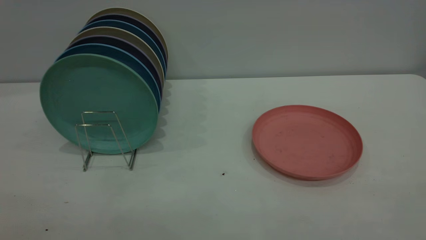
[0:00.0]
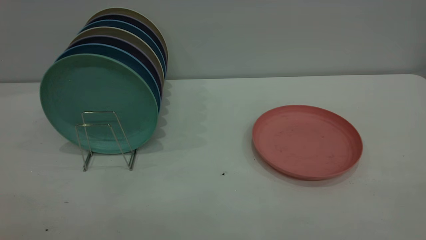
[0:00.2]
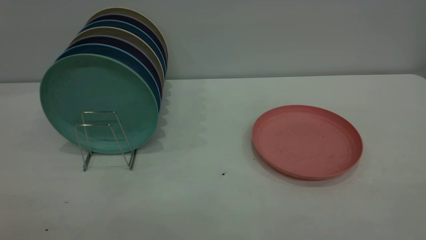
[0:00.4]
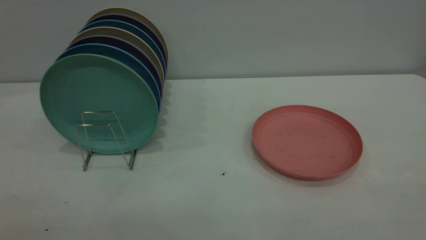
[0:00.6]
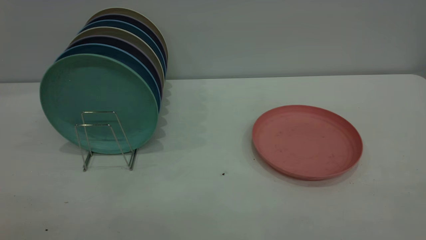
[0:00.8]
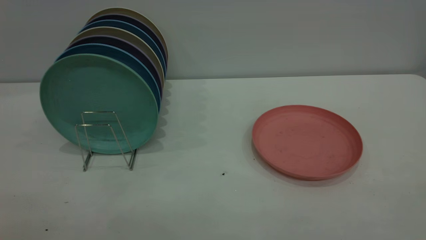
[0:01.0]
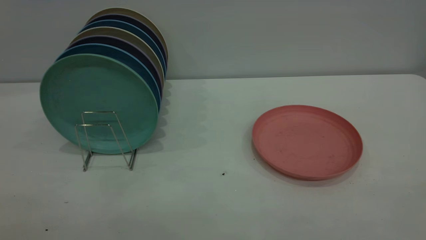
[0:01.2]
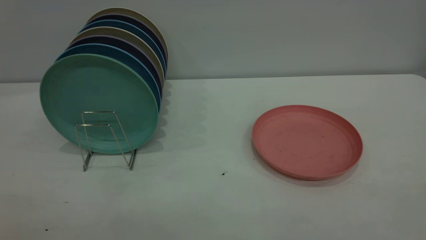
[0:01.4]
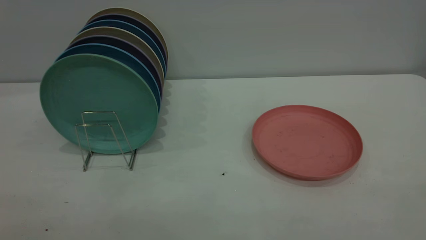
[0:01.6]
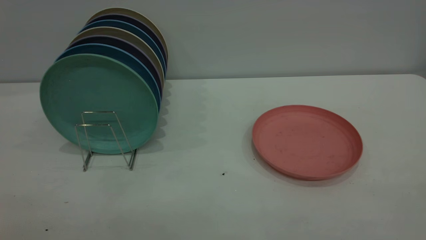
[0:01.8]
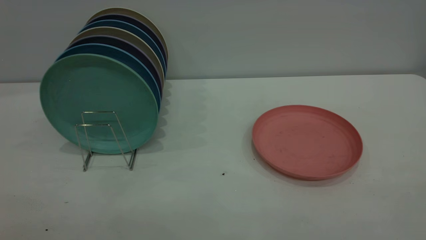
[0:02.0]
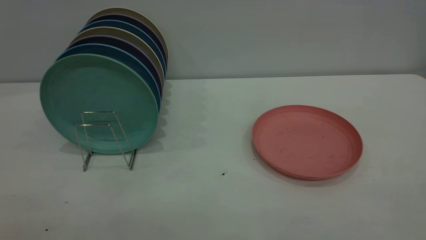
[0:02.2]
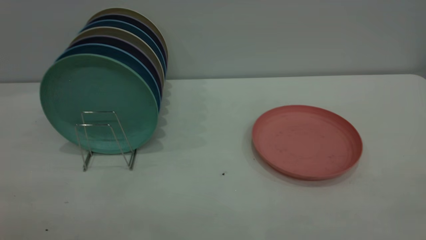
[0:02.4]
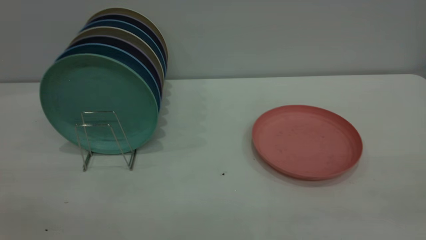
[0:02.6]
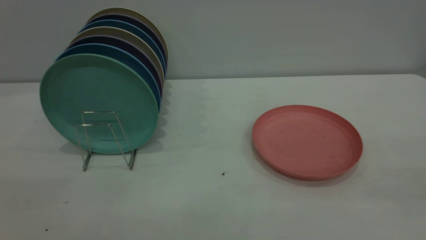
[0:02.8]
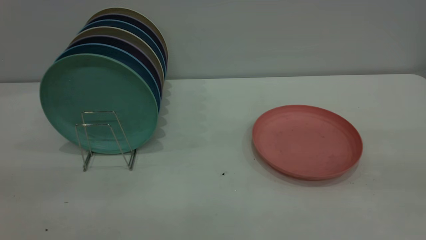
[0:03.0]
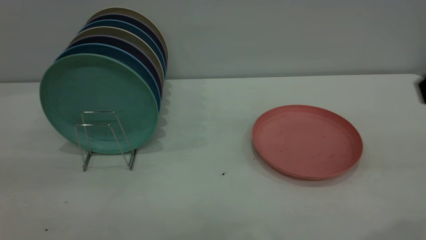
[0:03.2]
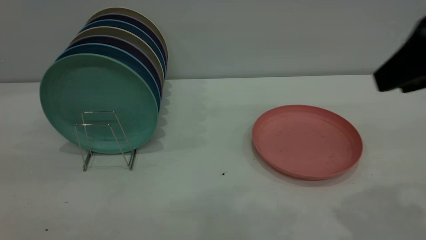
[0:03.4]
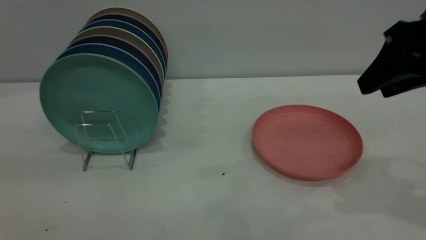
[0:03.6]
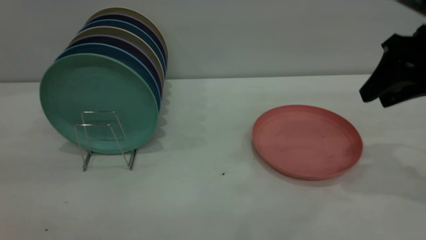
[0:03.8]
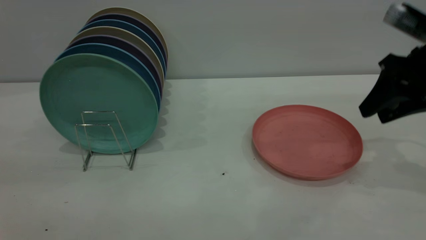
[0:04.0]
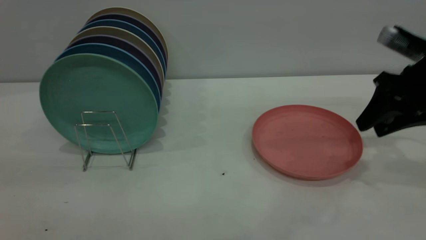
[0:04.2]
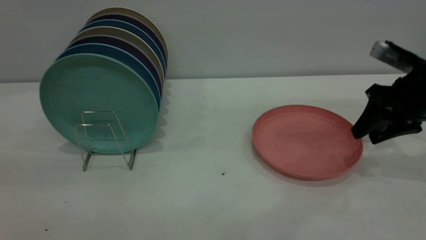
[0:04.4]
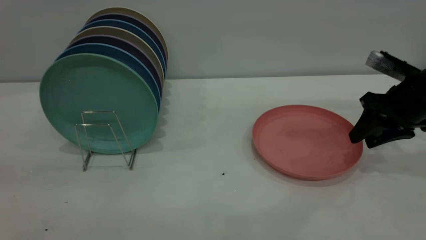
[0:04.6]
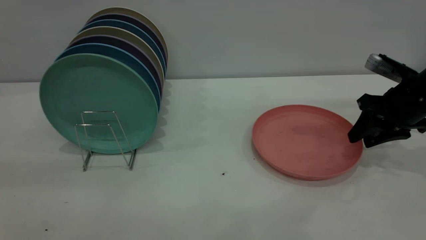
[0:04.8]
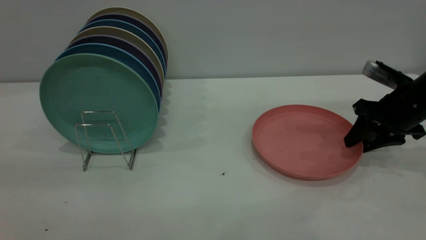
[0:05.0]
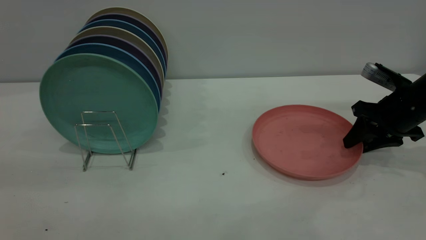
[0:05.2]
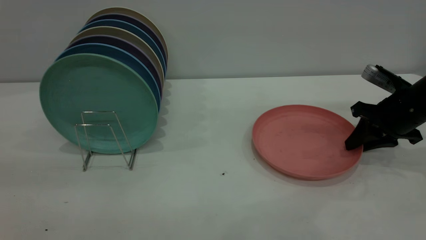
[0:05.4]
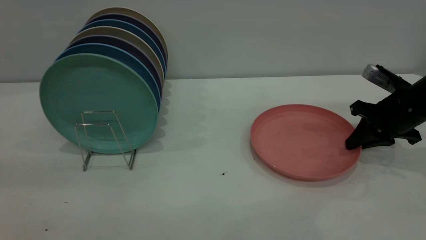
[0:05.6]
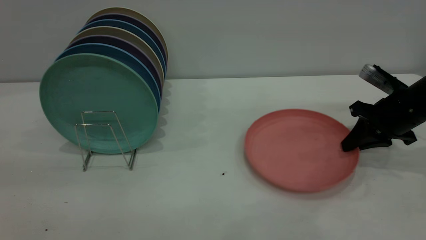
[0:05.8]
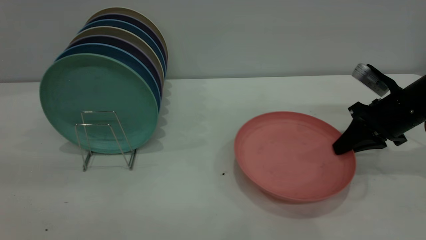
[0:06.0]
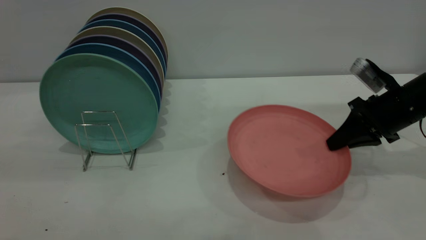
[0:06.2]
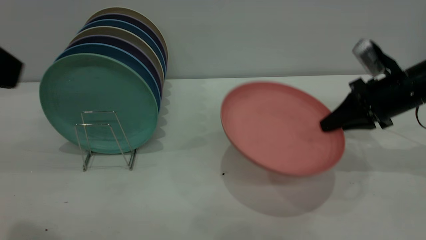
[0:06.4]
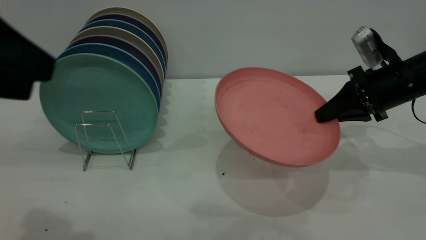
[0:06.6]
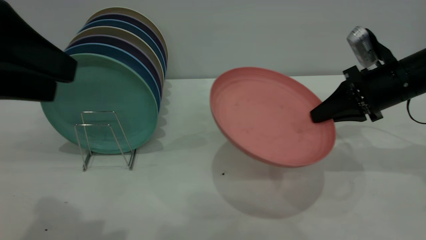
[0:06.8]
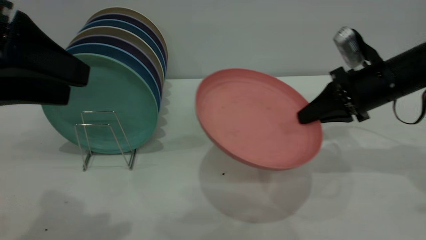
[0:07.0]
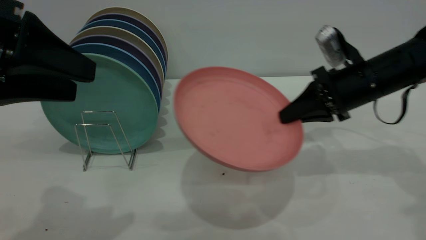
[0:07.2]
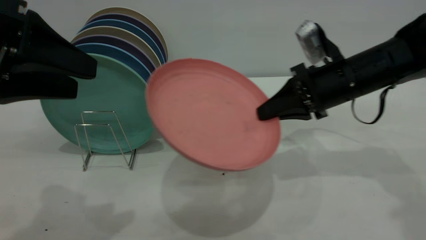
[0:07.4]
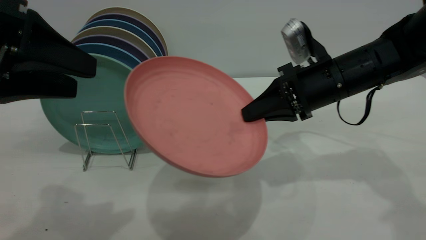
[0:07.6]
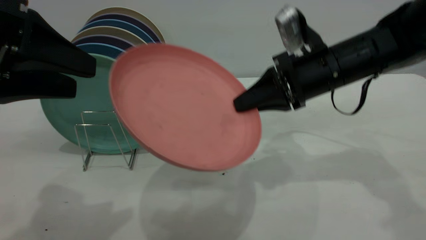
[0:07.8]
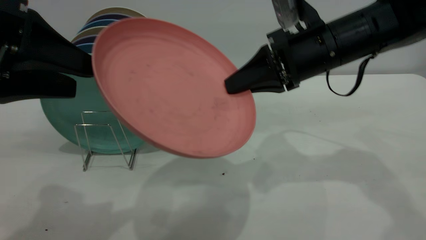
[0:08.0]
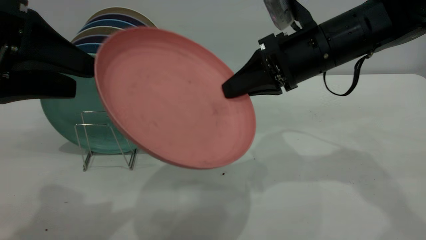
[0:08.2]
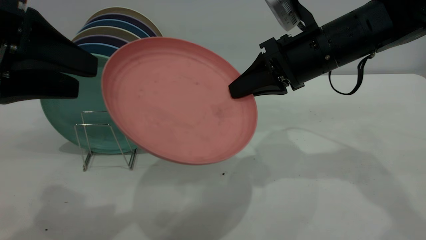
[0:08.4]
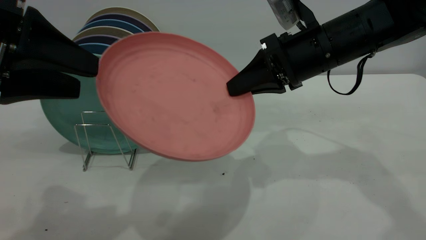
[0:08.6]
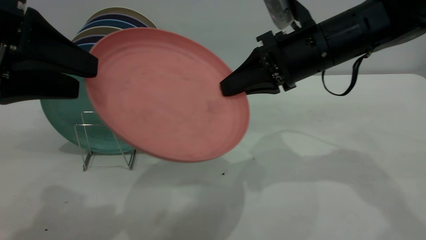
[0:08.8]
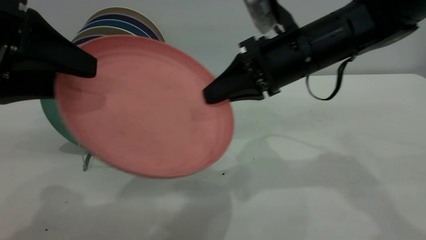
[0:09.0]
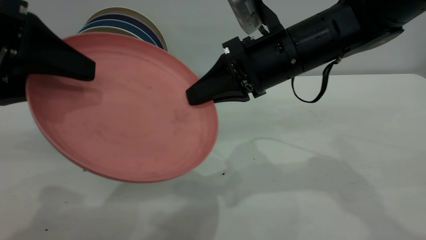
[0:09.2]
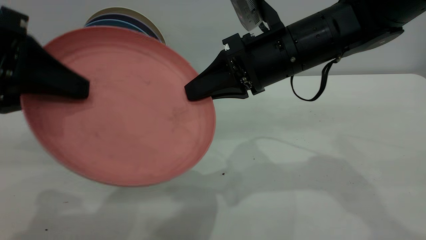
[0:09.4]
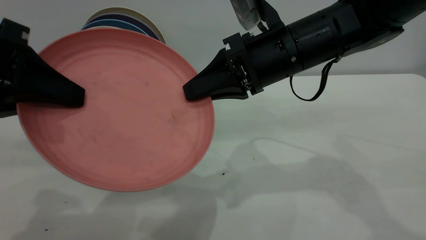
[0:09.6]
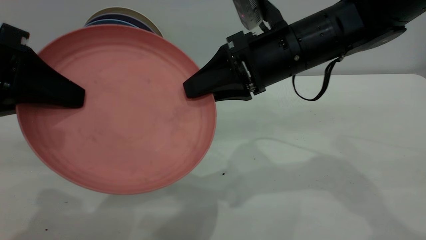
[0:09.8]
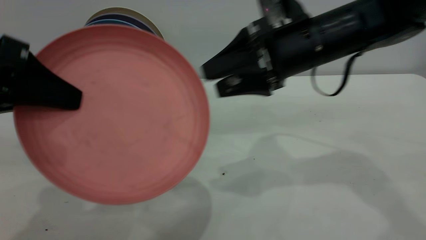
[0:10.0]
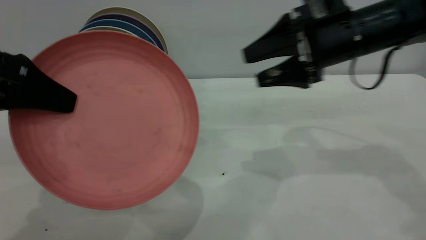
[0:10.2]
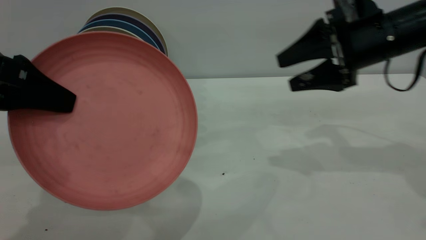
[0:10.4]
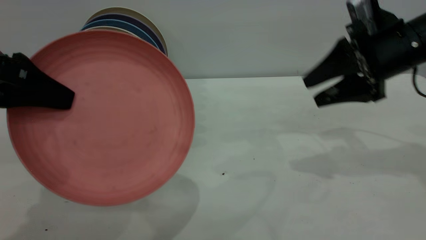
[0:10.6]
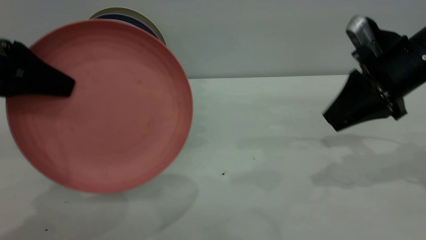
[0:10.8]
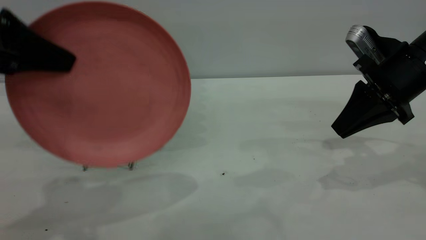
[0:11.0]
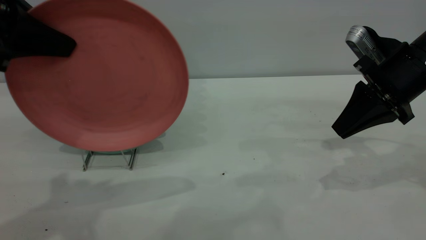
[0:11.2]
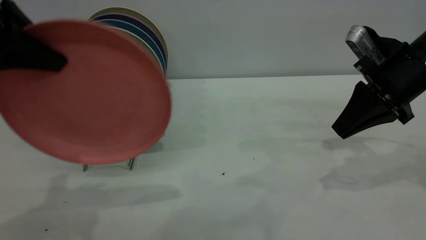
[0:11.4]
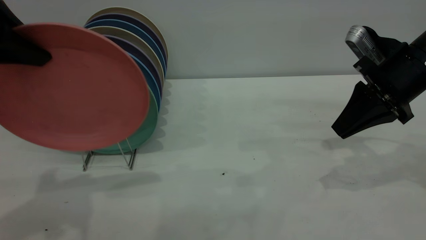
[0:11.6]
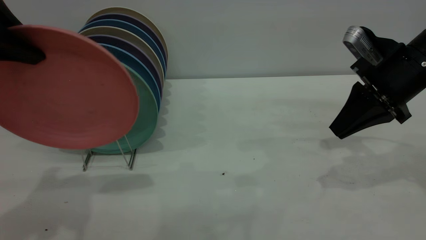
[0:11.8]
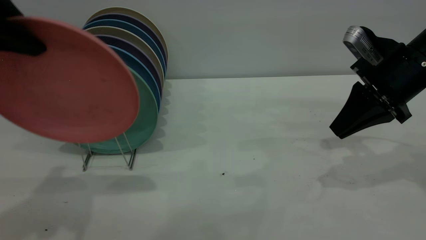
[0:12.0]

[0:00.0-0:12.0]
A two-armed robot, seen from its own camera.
Task of the whole recording: the right gripper grasp the pink plate, the right gripper pass the pink plate to the left gripper, and the left gripper place the pink plate on the plate rack.
Step, 0:00.0 to 0:06.2: Pick up the plate with the right gripper.
Step, 0:06.4 to 0:10.0: Pass the plate from the right gripper to the left gripper.
0:00.0 to 0:01.6: Both grippers stay put.
0:03.0 to 0:04.4: The right gripper goes some 30 cm forward and downward.
0:04.4 to 0:06.0: The right gripper closes.
0:06.0 to 0:07.6: The right gripper heads to the left and upward, covering roughly 15 cm, while the left gripper moves forward and downward, roughly 15 cm.
0:07.6 to 0:09.0: The right gripper travels to the left and upward by roughly 10 cm.
0:09.0 to 0:10.4: The left gripper closes up, while the right gripper is displaced to the right by some 15 cm, and opens its fingers.
0:10.4 to 0:12.0: The left gripper shifts some 5 cm upward, while the right gripper closes up.

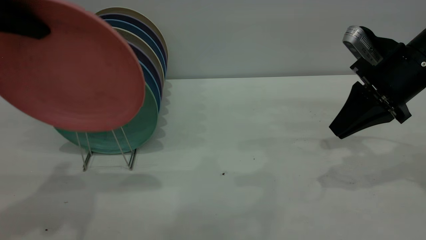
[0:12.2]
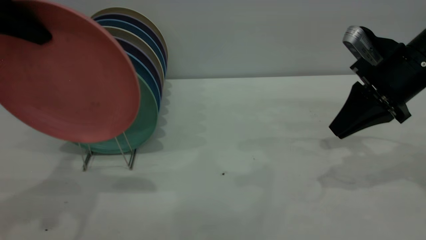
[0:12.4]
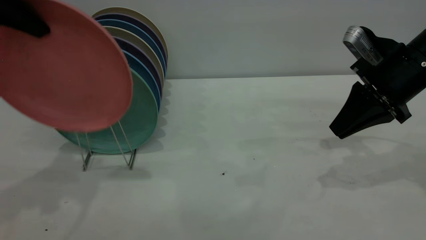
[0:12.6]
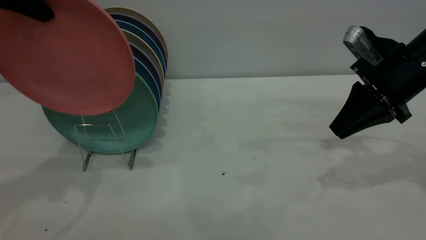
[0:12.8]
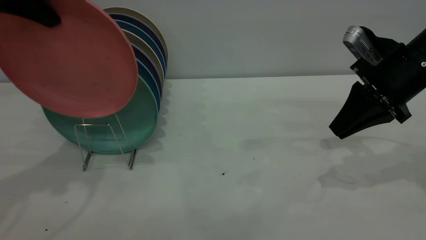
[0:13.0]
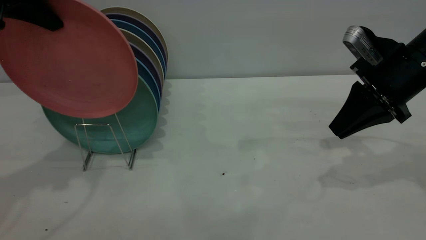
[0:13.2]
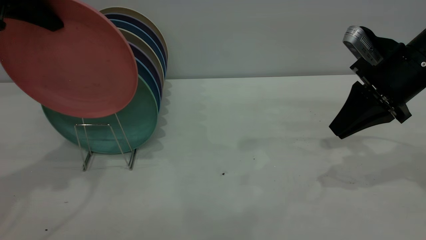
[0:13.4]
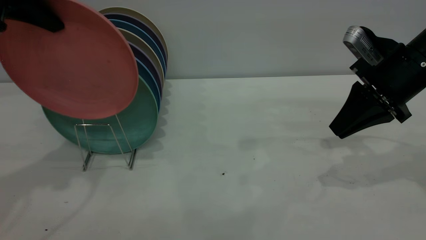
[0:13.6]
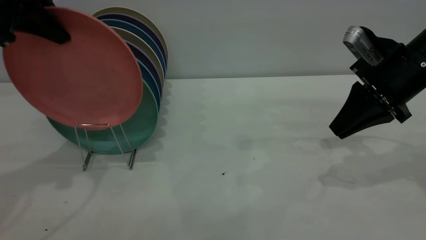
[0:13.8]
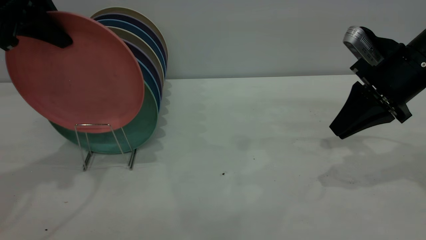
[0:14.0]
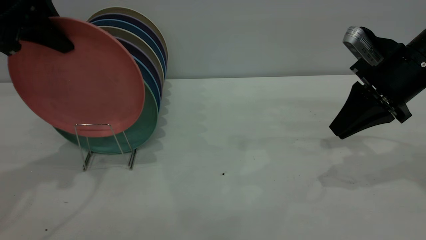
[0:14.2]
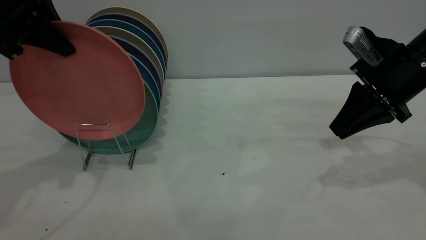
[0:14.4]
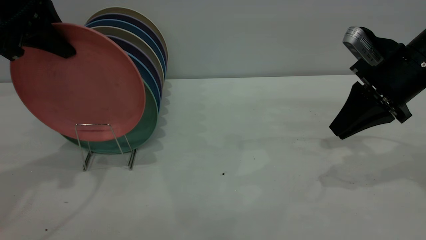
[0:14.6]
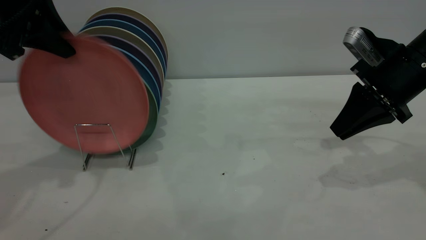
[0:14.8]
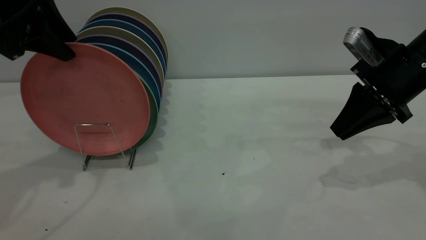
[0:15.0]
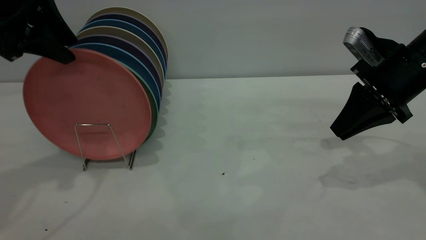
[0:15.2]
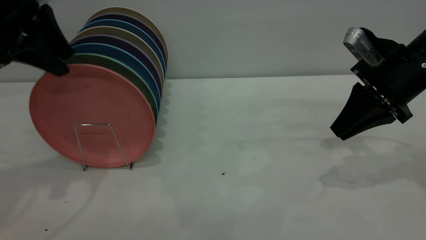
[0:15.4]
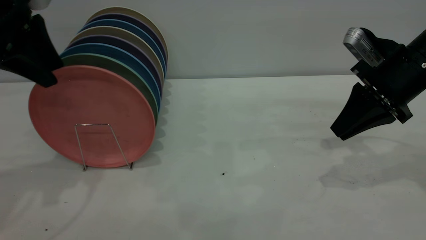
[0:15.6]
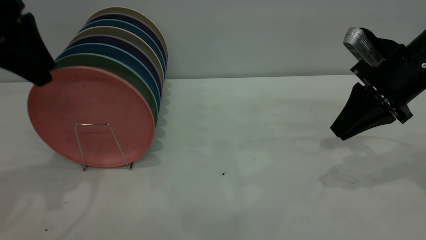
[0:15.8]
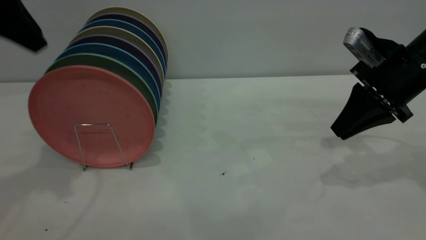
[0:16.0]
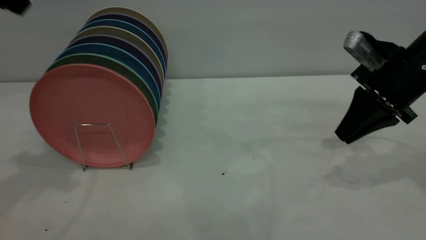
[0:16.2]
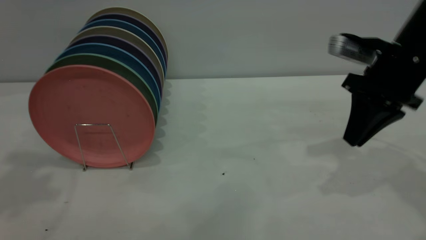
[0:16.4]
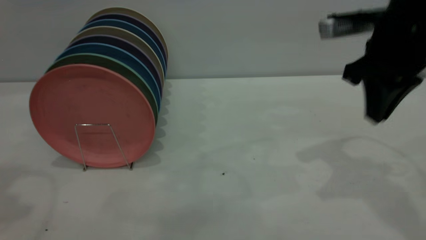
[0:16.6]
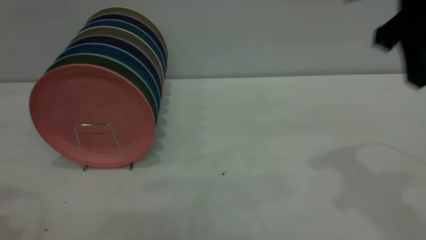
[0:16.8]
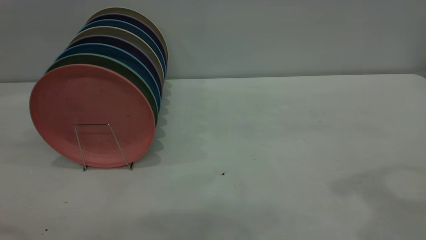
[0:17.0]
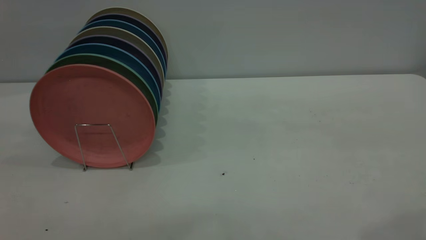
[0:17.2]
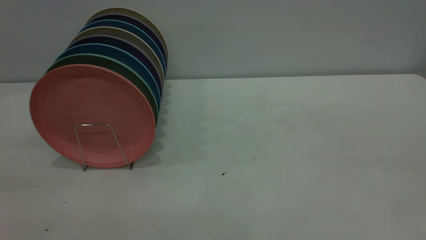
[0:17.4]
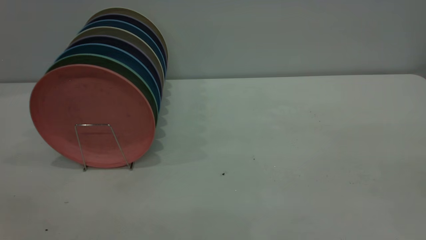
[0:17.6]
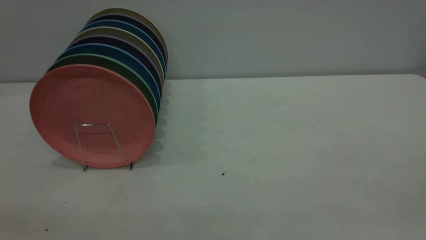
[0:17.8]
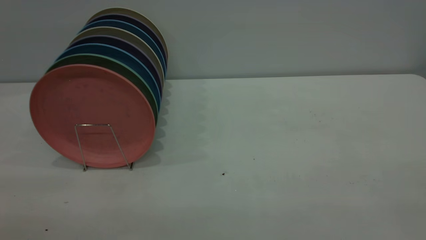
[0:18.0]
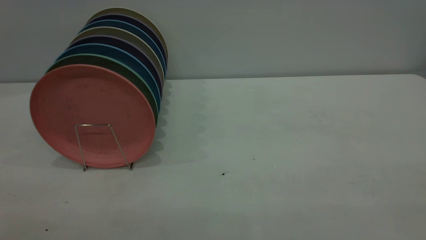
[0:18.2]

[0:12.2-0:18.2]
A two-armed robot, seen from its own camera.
Task of the whole recording: the right gripper grasp the pink plate, the right gripper pass the pink plate to the left gripper, and the left gripper place the pink plate on the plate rack.
Step, 0:12.2 to 0:15.8: Place the plate on the shelf.
0:12.2 to 0:13.8: The left gripper shifts approximately 10 cm forward.
0:13.8 to 0:15.2: The left gripper opens.
0:15.2 to 0:16.6: The right gripper shifts roughly 10 cm upward and to the left; the left gripper travels backward and upward by about 15 cm.
0:16.6 to 0:18.2: The right gripper moves backward, roughly 30 cm, and opens its fingers.
